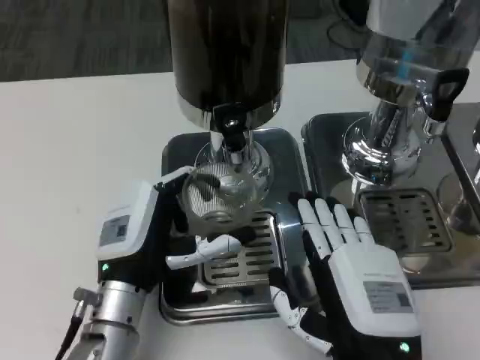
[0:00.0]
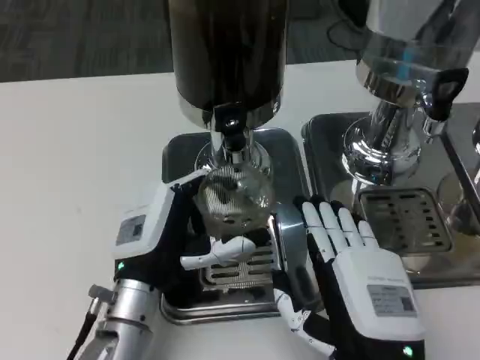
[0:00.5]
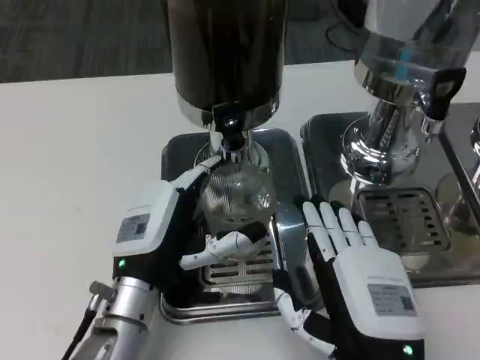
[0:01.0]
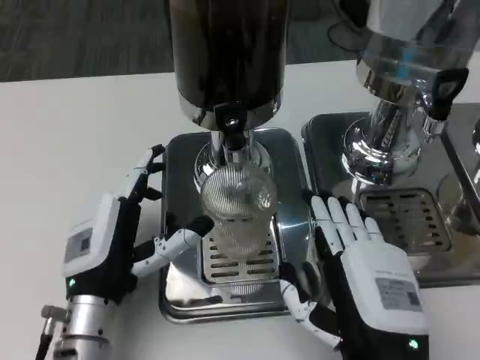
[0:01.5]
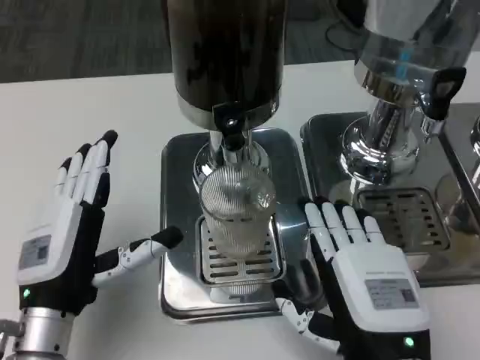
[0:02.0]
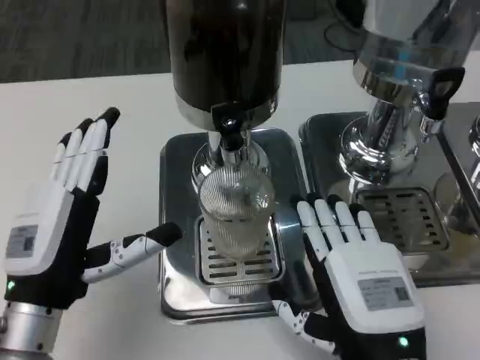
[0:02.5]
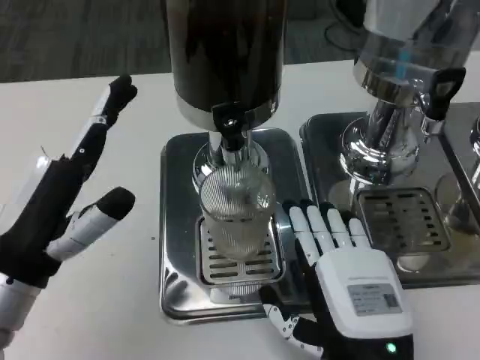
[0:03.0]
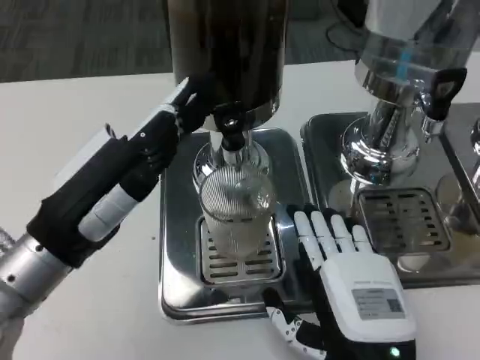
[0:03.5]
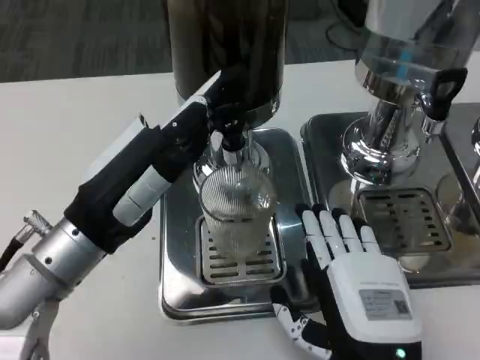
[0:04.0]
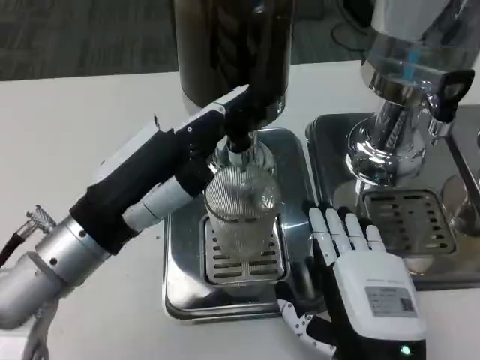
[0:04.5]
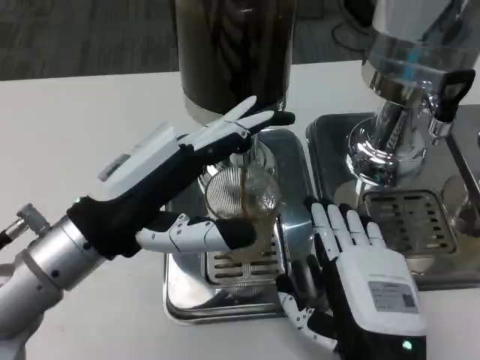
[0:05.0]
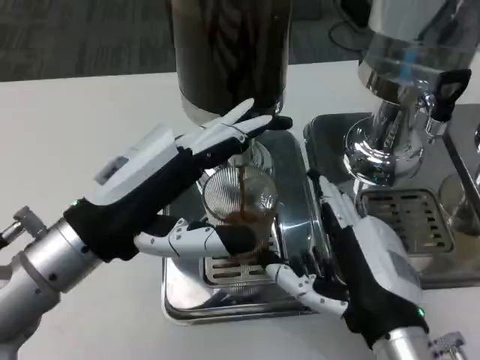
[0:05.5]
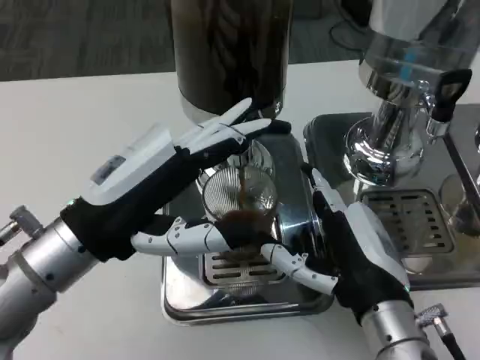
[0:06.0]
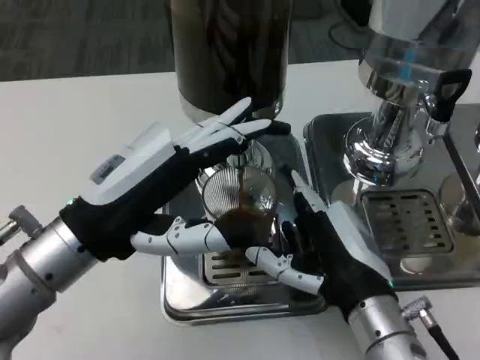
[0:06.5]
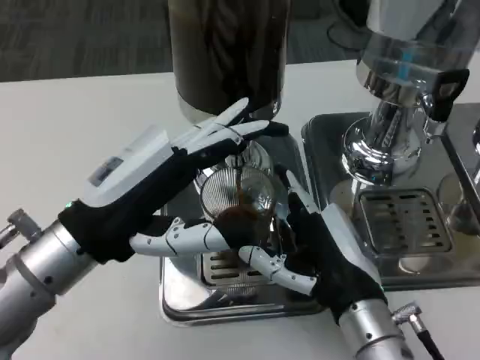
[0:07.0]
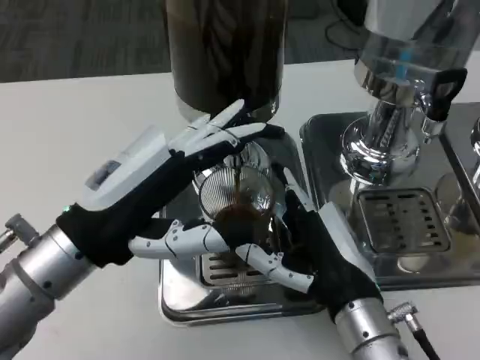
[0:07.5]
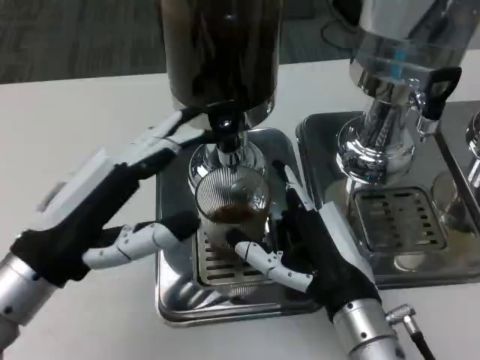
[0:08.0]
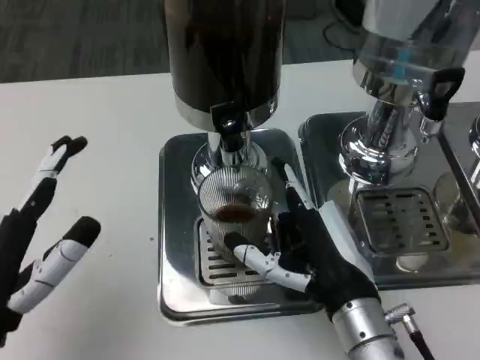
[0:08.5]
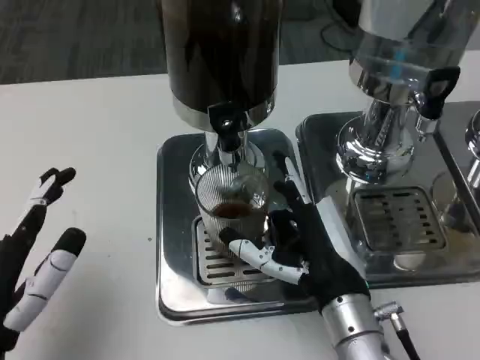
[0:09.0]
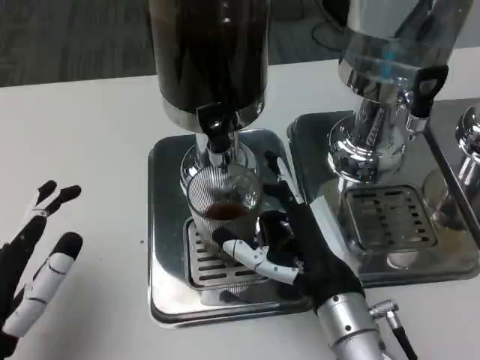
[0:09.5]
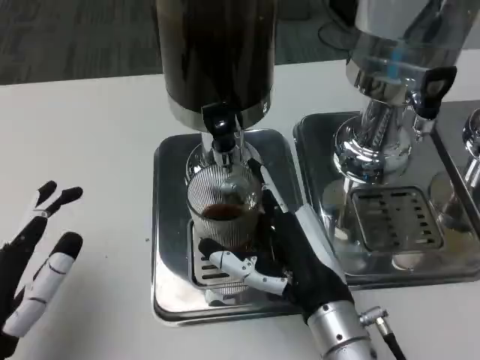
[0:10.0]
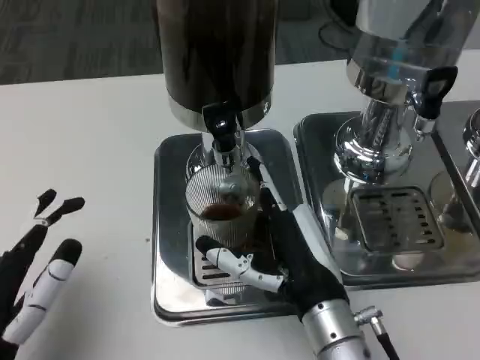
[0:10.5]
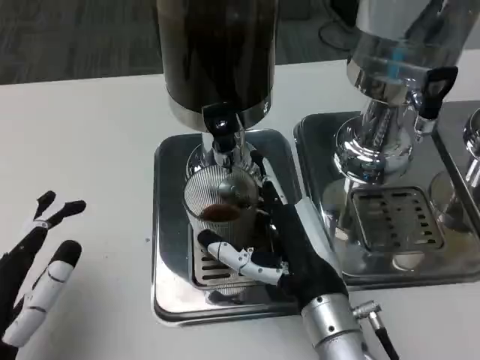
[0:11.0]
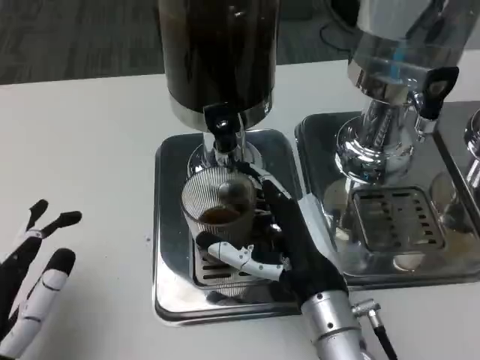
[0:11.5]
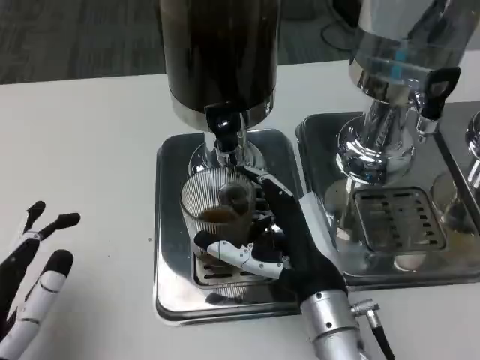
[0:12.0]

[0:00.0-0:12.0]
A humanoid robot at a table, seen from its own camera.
Task of the whole recording: Grasp the cup under the faucet to collect the drink, then remove the cup.
0:00.0 to 0:02.0: The left hand moves to the left, about 5 cm.
0:02.0 to 0:04.0: The left hand moves upward, some 10 cm.
0:04.0 to 0:06.0: The right hand is displaced forward by approximately 5 cm.
0:08.0 to 0:10.0: The left hand moves backward and downward, some 10 cm.
0:10.0 to 0:12.0: There are only small adjustments of the hands.

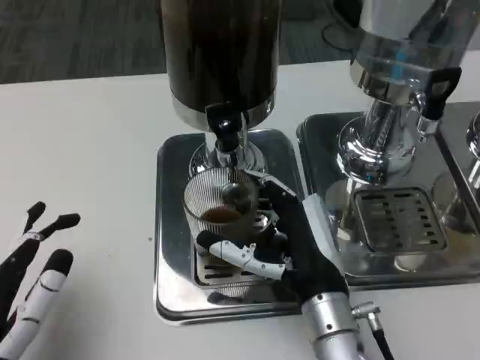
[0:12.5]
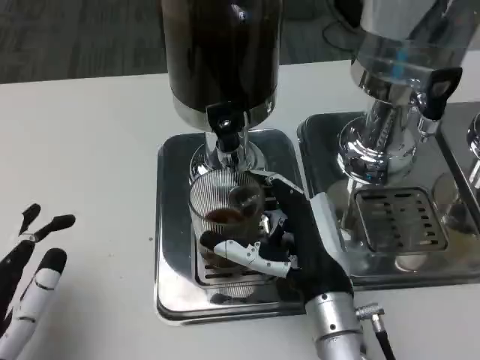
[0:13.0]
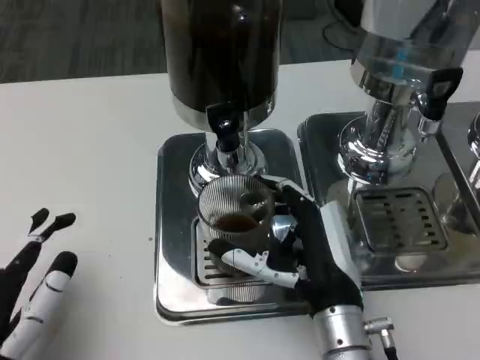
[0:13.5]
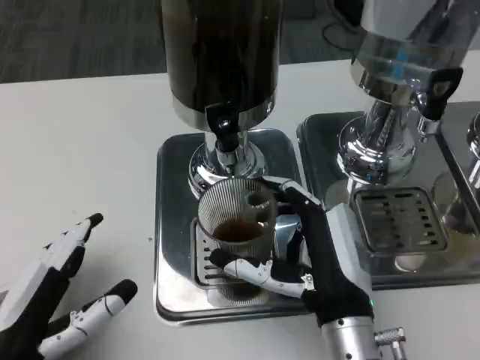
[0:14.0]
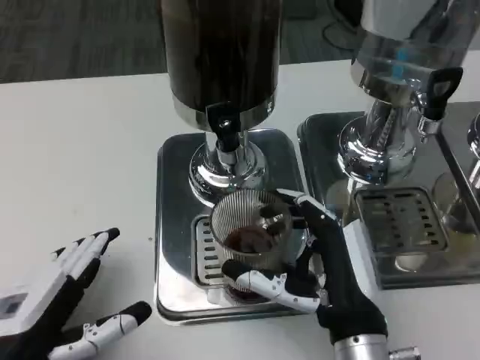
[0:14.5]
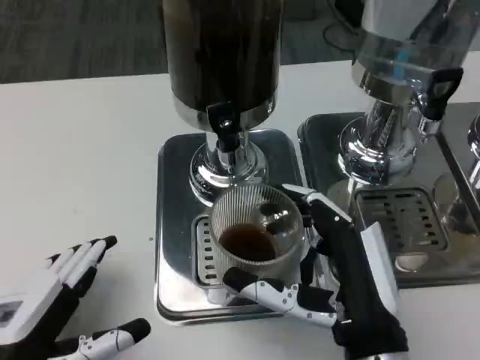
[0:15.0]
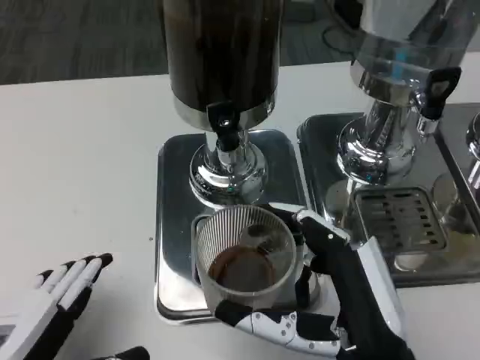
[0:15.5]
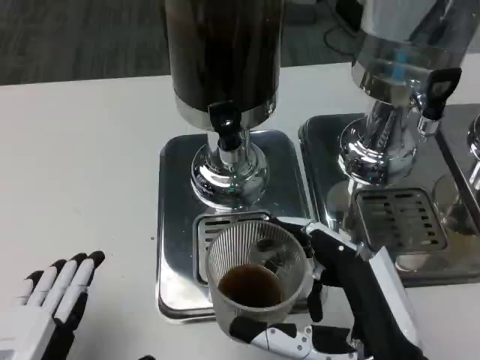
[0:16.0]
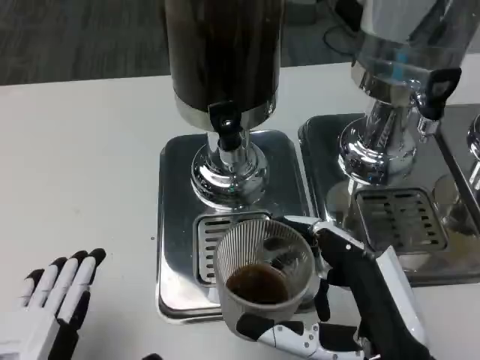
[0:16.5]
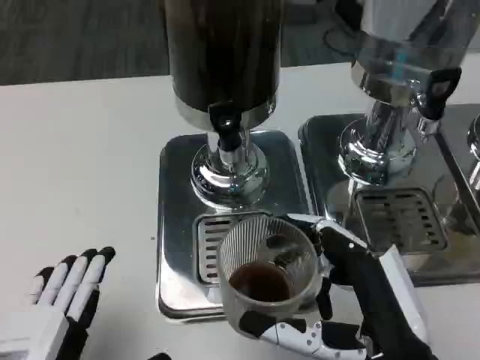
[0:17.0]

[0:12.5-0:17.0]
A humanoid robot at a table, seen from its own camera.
Task of the whole recording: Grasp the cup under the faucet to collect the drink, then remove the cup.
0:14.5 to 0:17.0: The hands both shift backward by approximately 5 cm.

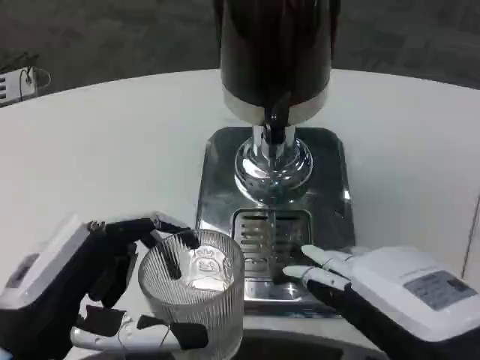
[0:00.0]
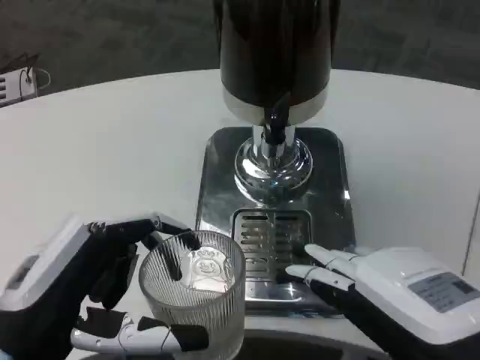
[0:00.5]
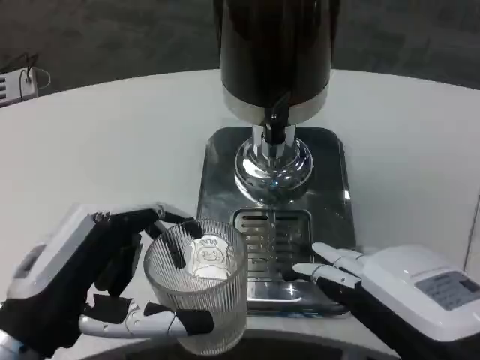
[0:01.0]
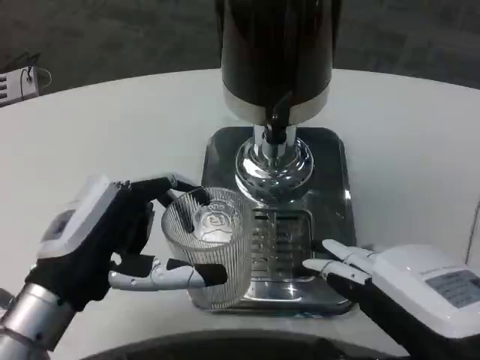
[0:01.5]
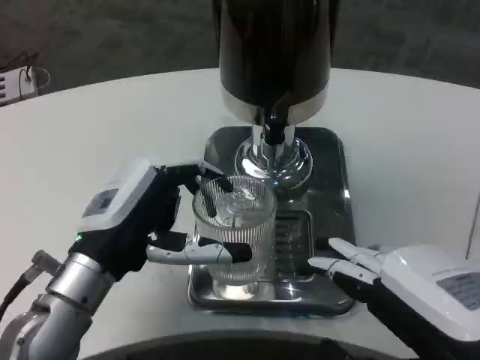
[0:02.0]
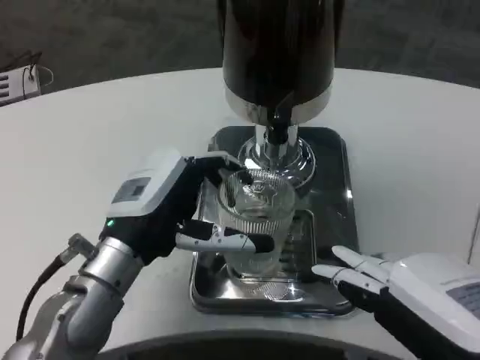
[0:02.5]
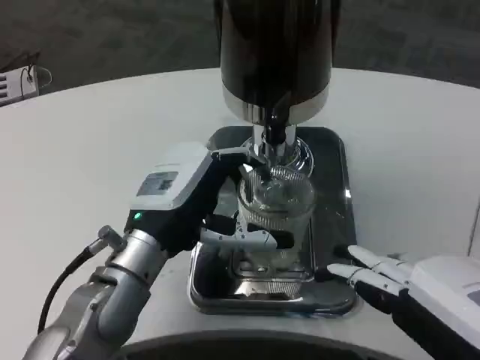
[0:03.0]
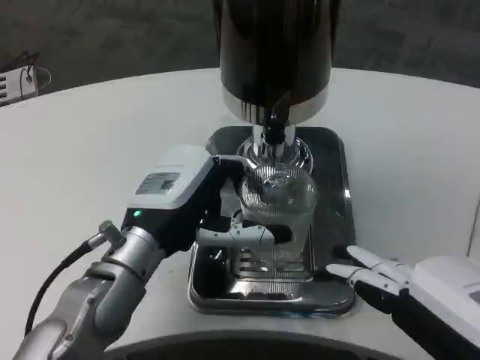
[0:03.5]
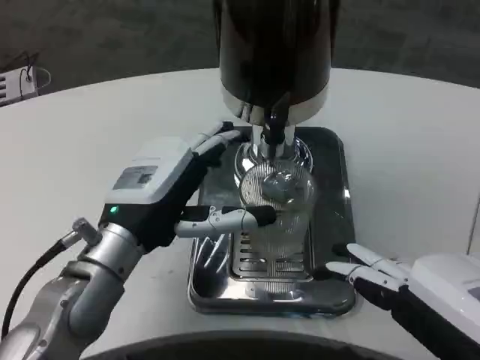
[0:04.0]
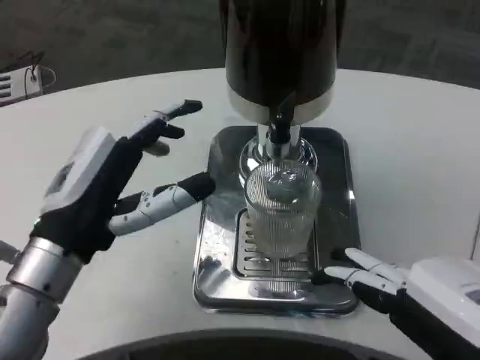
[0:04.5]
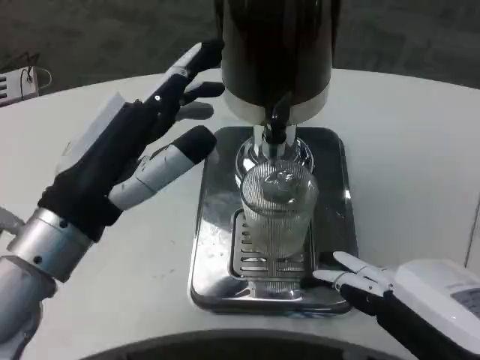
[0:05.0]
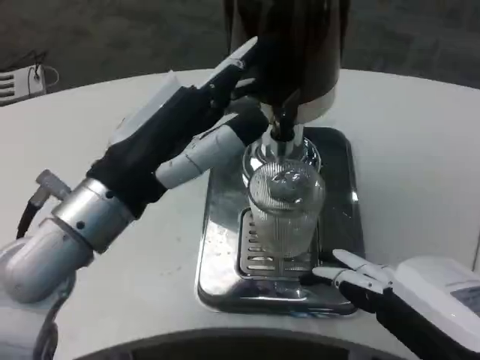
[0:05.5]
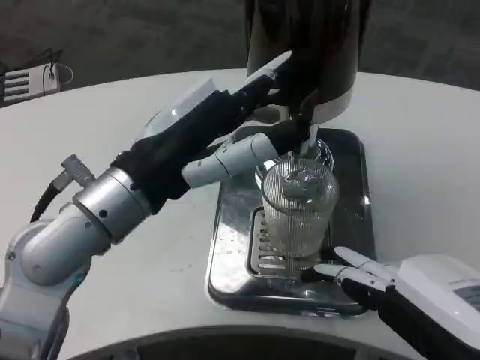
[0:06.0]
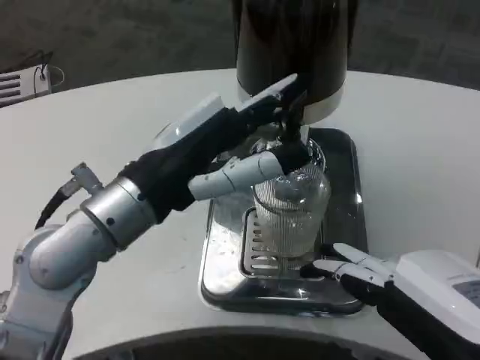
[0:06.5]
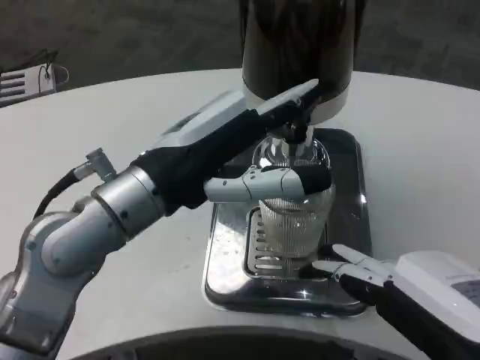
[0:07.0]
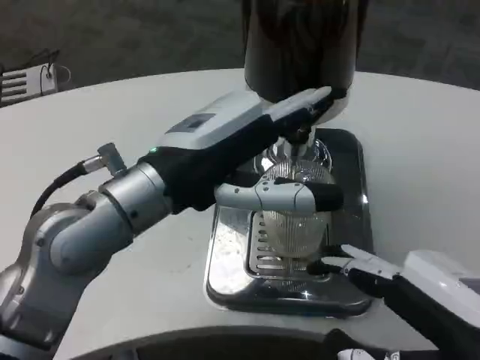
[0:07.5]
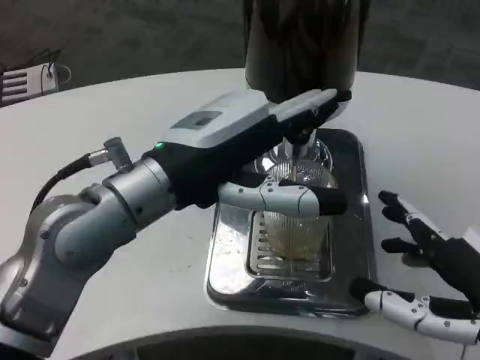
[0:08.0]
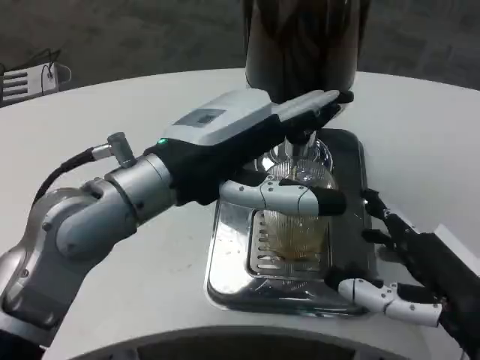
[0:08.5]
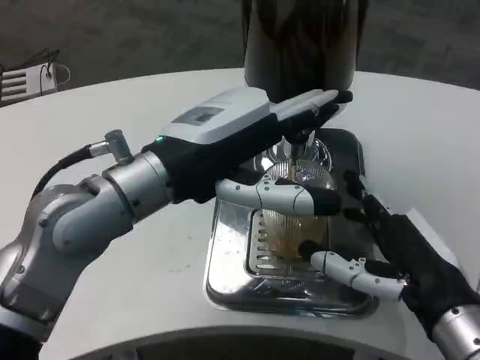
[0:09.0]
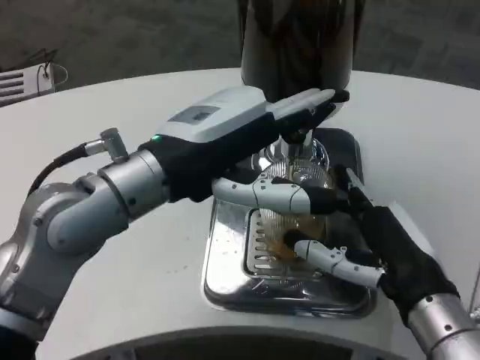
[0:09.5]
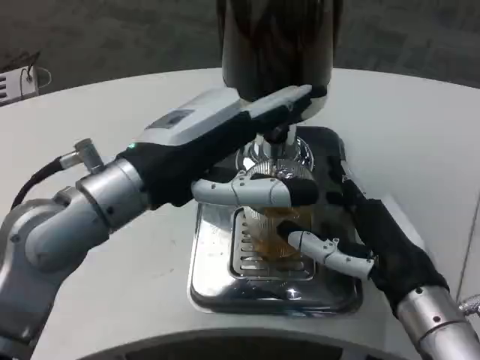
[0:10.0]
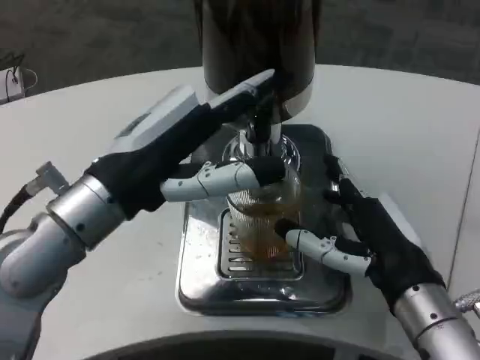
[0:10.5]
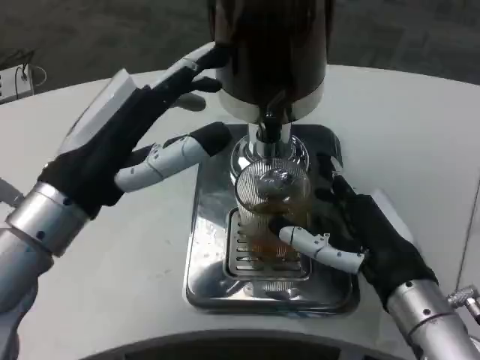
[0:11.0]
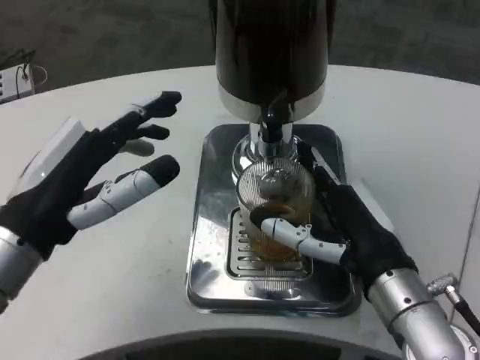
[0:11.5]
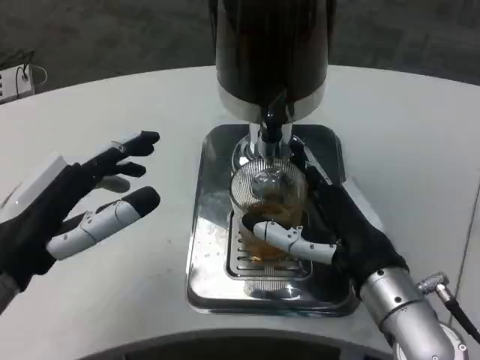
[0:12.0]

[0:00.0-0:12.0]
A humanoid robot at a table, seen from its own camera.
Task of the whole recording: Grasp the cup under the faucet to collect the drink, then remove the cup.
0:00.0 to 0:02.0: The left hand moves forward, approximately 10 cm.
0:04.0 to 0:06.0: The left hand heads upward, covering some 10 cm.
0:06.0 to 0:08.0: The right hand moves approximately 5 cm.
0:08.0 to 0:10.0: The right hand is displaced forward and to the left by some 10 cm.
0:10.0 to 0:12.0: The left hand goes approximately 10 cm to the left, downward and backward.
